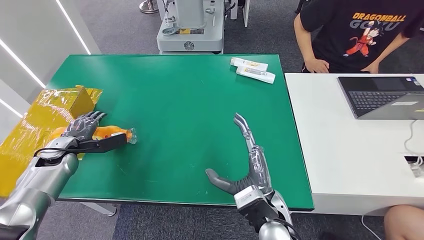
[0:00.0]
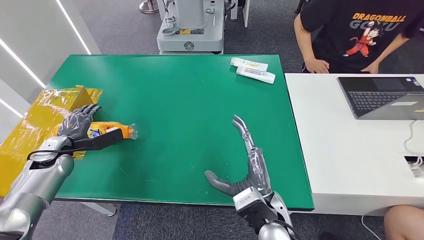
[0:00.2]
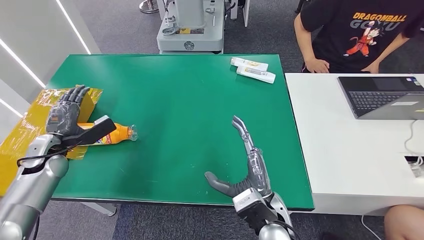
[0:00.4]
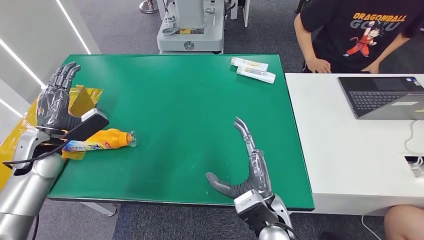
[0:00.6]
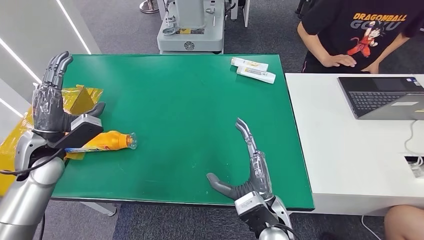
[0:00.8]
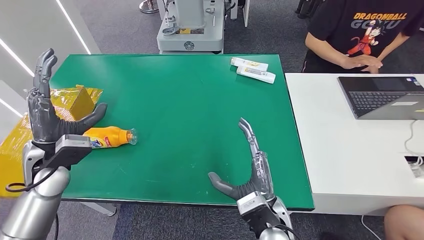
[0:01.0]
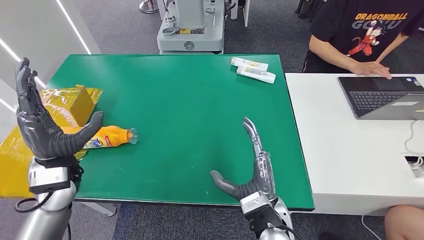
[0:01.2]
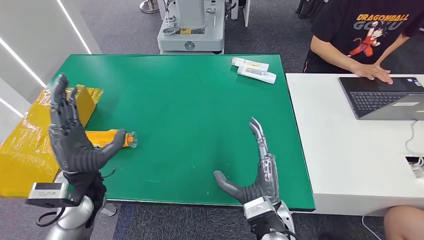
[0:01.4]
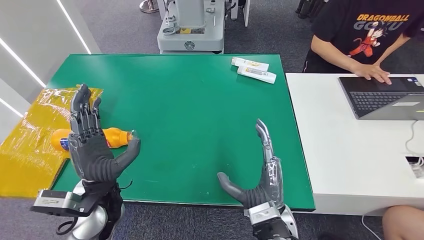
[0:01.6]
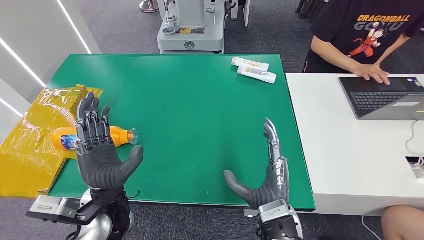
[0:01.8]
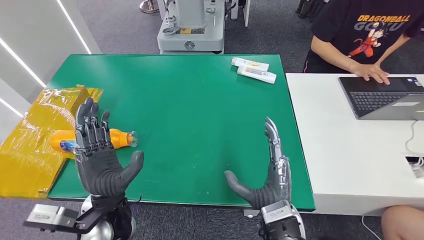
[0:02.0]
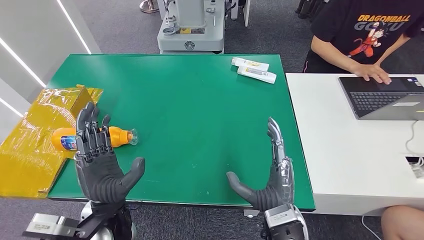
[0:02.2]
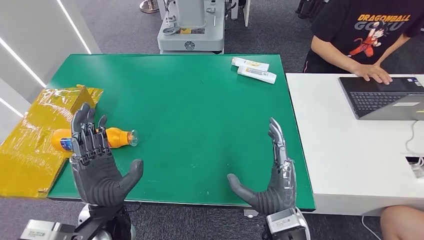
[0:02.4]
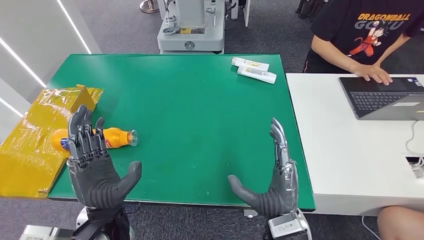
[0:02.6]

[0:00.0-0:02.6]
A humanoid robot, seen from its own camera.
Step, 0:00.0 to 0:02.6: Turn the bottle to the front side.
0:00.0 to 0:01.2: The left hand is displaced to the right, upward and backward by roughly 15 cm.
0:01.2 to 0:02.6: The left hand is displaced to the right and backward by some 15 cm.

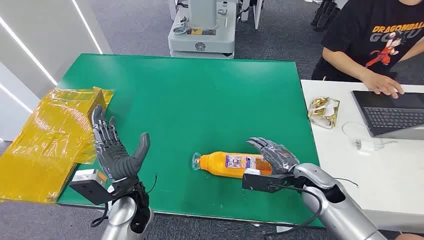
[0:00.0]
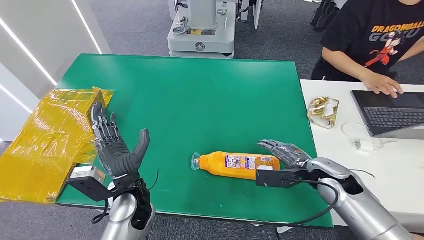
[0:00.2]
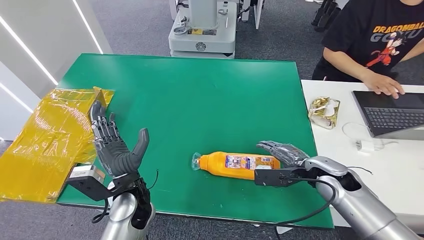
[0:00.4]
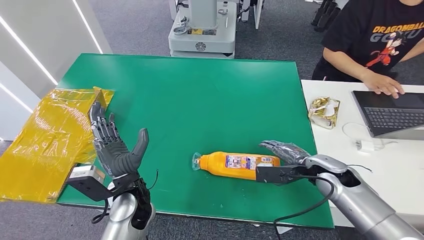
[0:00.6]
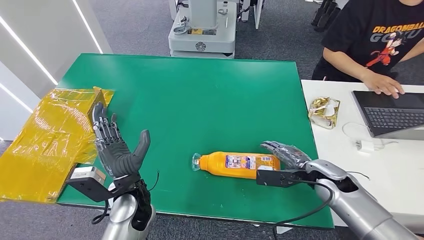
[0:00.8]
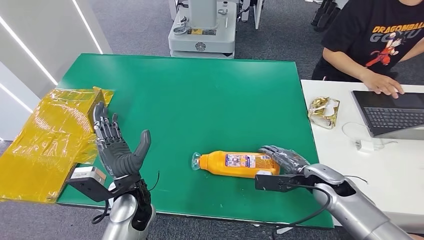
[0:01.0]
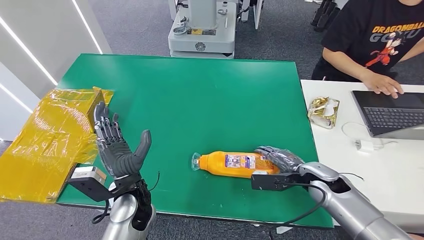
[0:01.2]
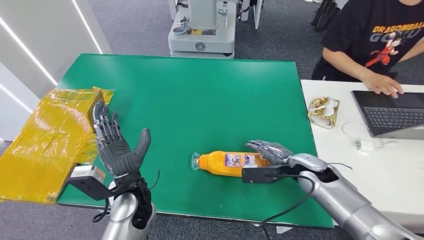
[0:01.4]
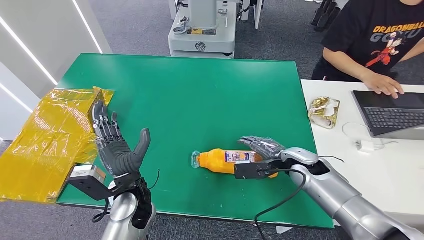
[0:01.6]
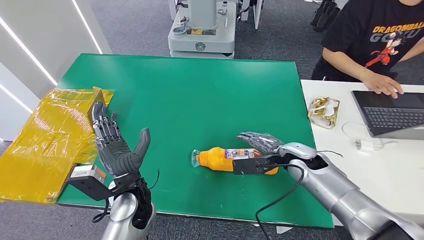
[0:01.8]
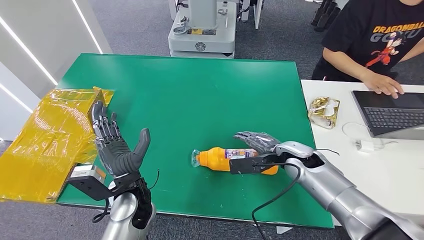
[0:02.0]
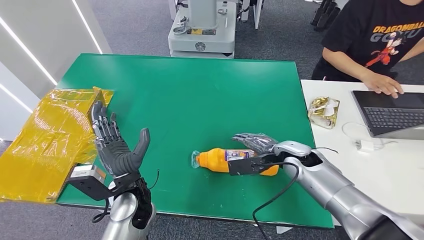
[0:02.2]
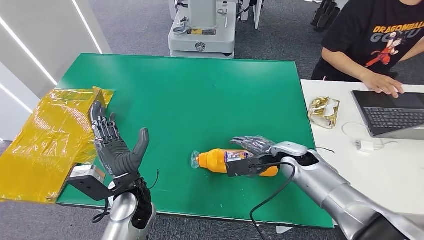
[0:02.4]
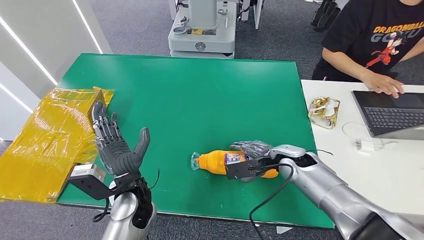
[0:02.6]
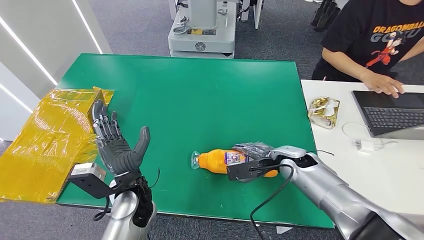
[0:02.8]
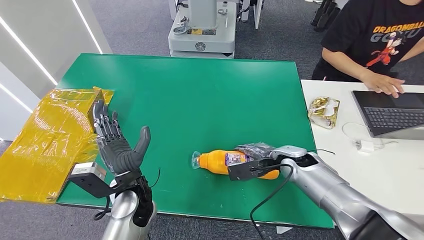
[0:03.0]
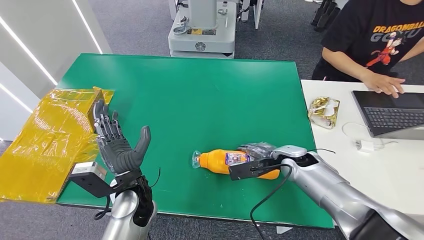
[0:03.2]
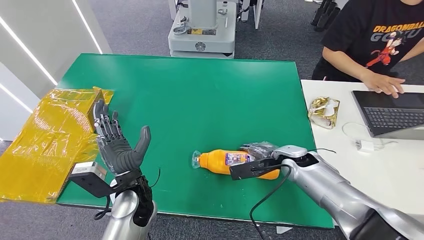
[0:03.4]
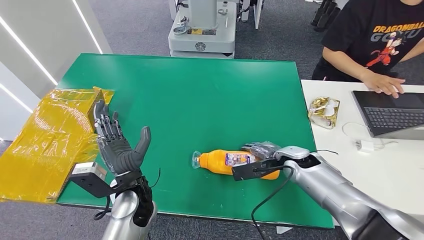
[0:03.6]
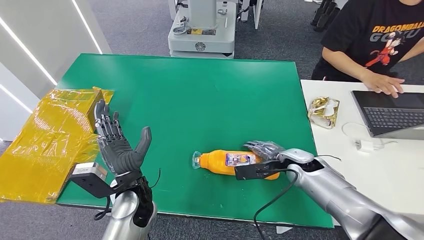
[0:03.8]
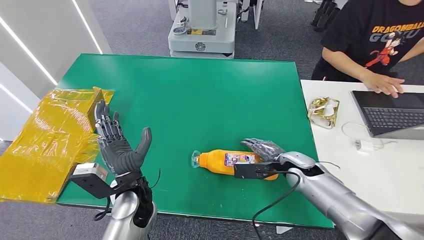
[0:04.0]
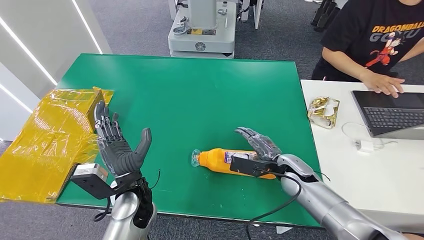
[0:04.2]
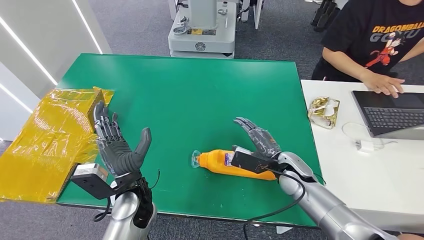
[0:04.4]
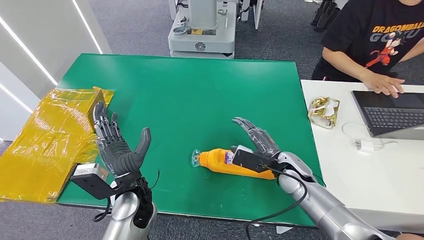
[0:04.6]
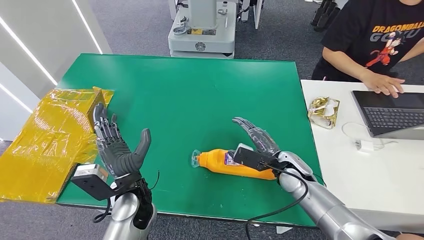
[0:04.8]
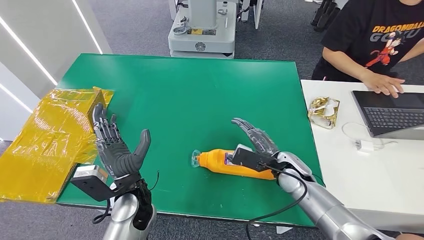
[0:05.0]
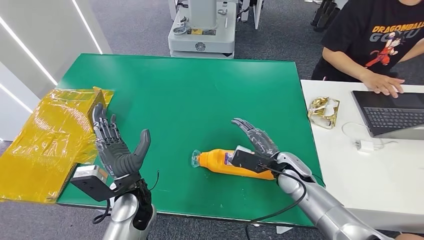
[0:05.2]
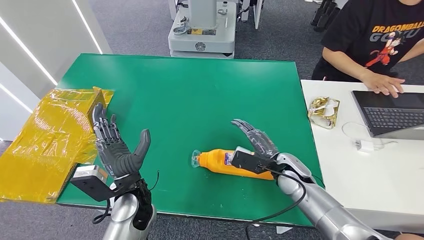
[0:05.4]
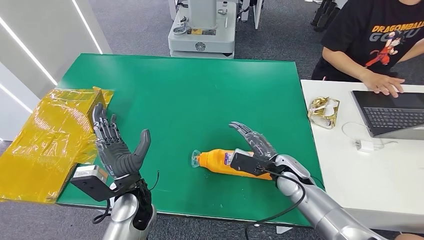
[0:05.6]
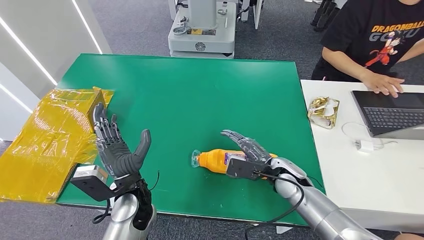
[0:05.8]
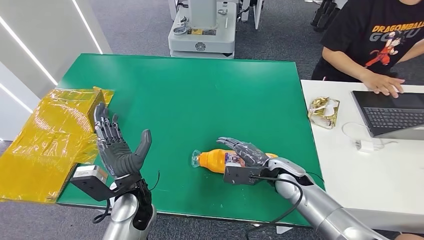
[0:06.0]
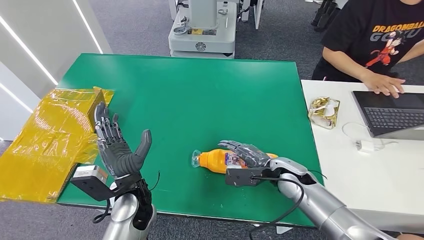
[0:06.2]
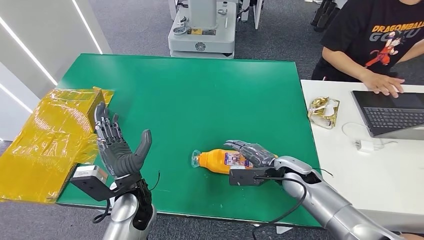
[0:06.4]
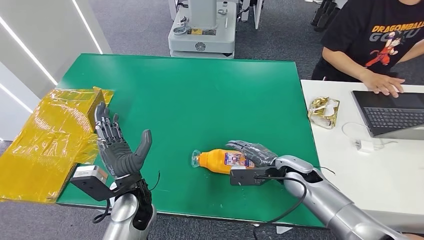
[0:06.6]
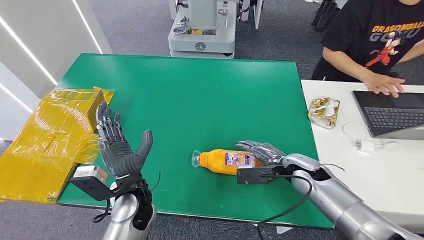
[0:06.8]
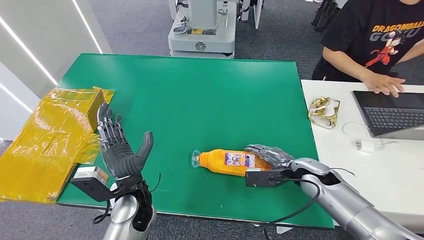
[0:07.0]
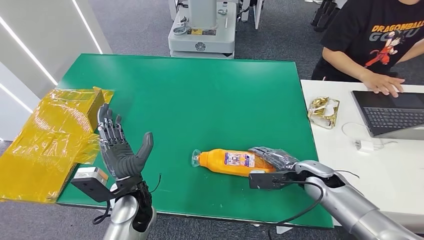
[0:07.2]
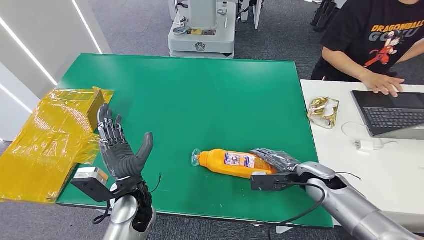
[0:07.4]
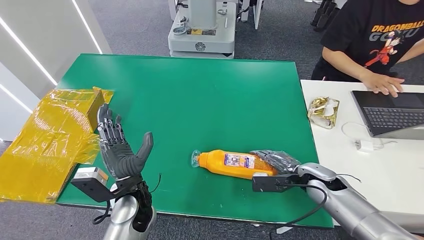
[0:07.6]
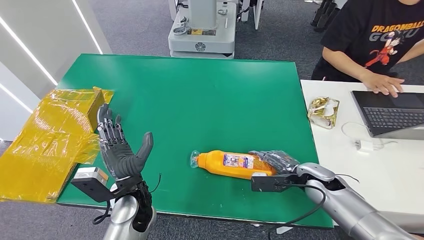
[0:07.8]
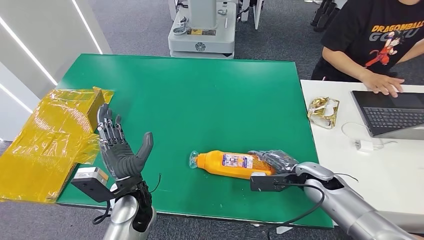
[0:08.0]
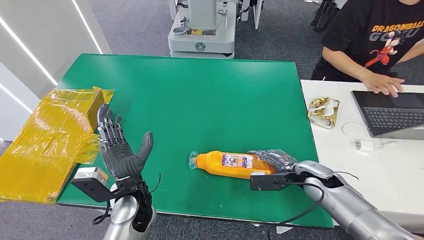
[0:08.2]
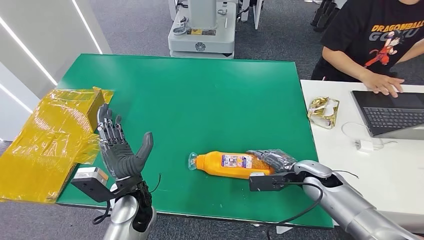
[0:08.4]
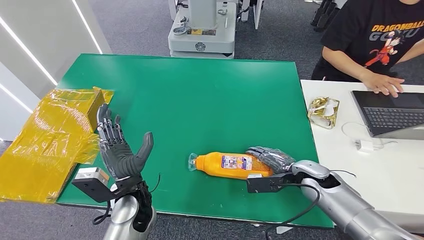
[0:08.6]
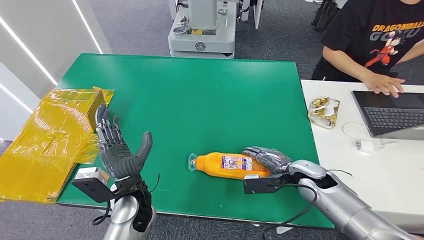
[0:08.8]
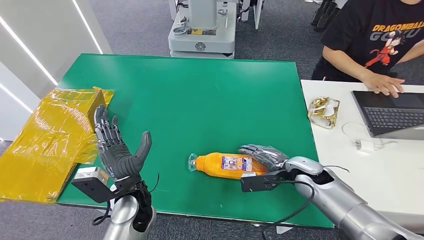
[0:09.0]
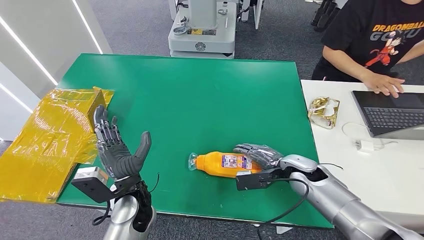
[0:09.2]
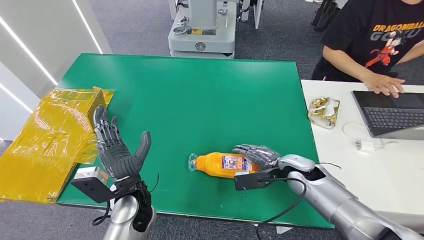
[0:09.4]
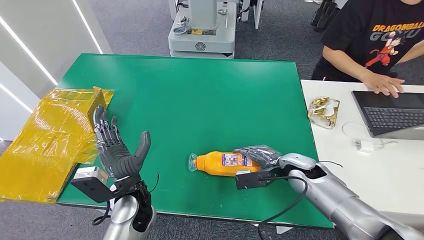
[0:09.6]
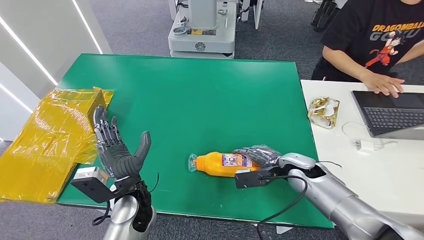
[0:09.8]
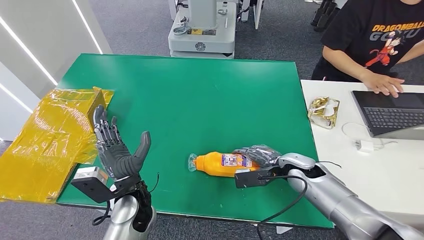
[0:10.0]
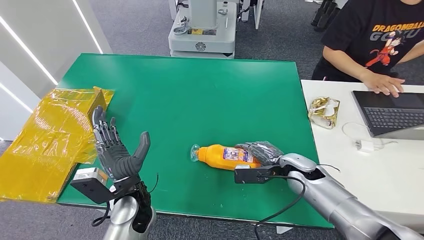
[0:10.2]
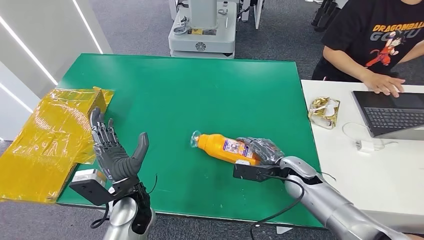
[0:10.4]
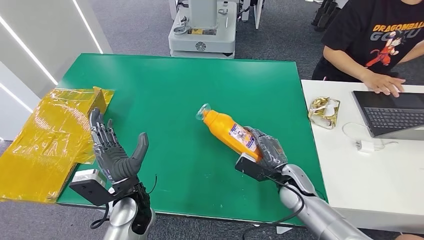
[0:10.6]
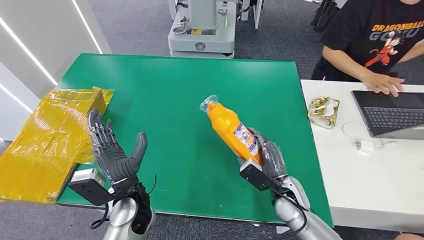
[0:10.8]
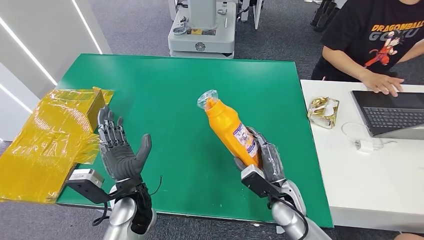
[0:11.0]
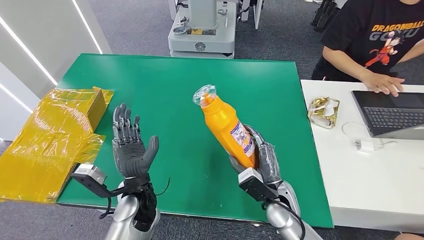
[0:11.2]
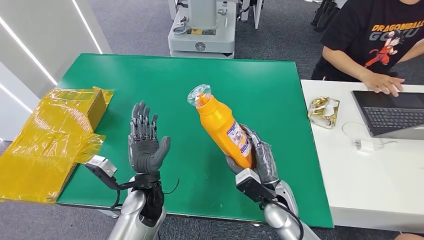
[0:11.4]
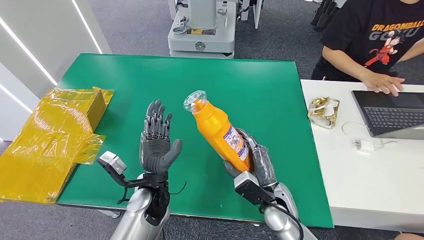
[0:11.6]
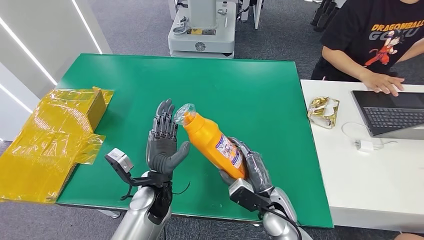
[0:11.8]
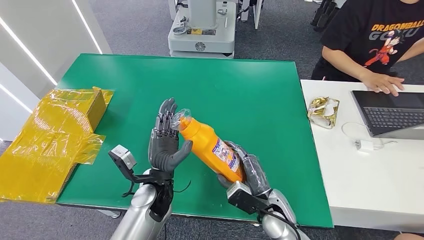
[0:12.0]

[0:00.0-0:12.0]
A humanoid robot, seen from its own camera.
Step, 0:00.0 to 0:11.8: Pick up the bottle from the table.
0:01.6 to 0:03.0: The hands move only a little.
0:04.4 to 0:06.0: The hands move only a little.
0:06.0 to 0:07.6: The right hand is displaced to the right by some 10 cm.
0:07.6 to 0:09.0: The hands make only small movements.
0:09.0 to 0:10.4: The hands move only a little.
0:10.4 to 0:12.0: The left hand changes place by about 5 cm; the right hand heads backward and to the left, covering roughly 10 cm.

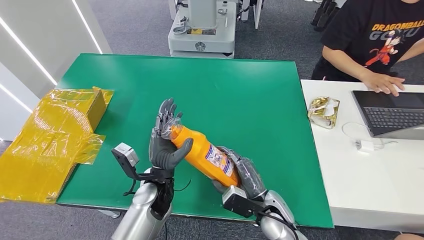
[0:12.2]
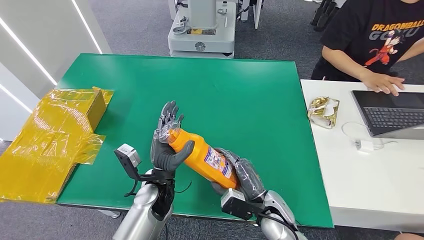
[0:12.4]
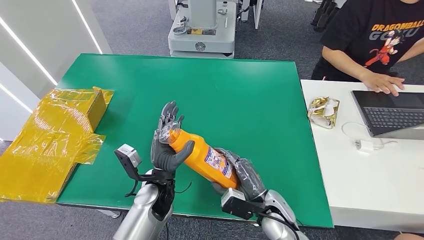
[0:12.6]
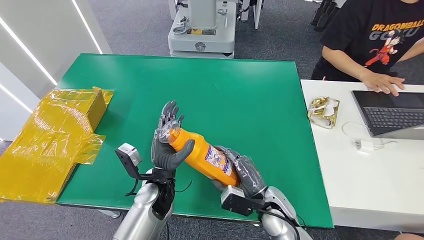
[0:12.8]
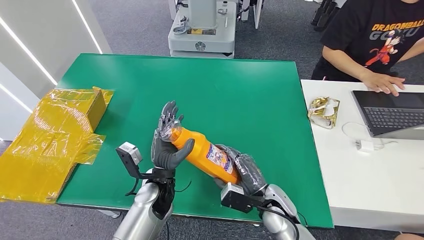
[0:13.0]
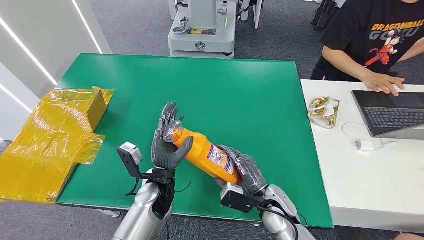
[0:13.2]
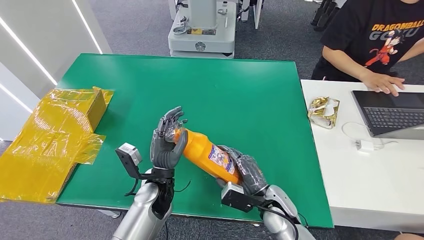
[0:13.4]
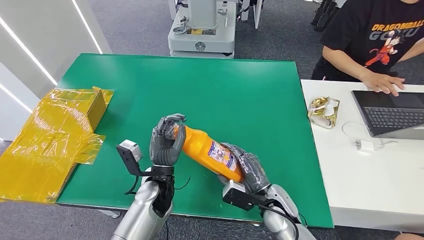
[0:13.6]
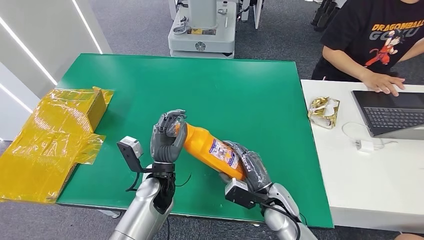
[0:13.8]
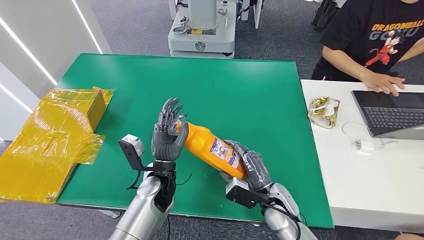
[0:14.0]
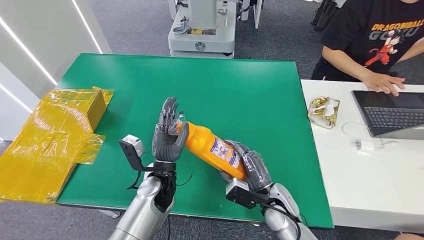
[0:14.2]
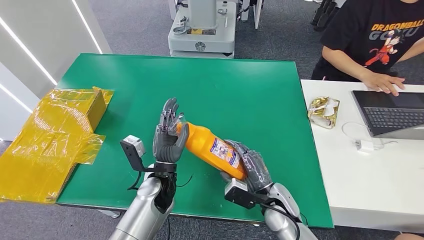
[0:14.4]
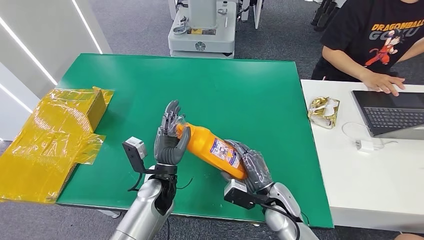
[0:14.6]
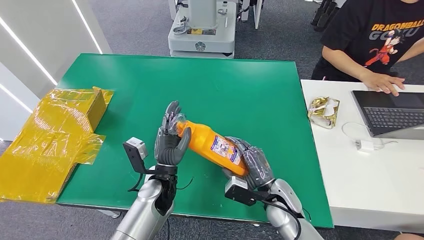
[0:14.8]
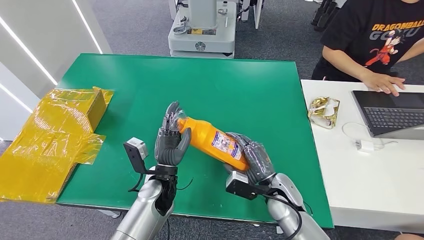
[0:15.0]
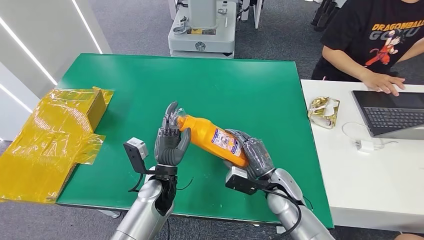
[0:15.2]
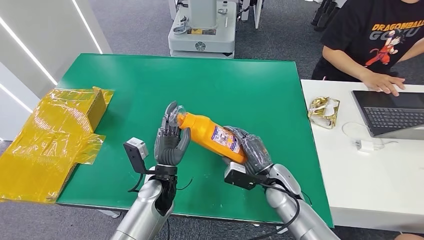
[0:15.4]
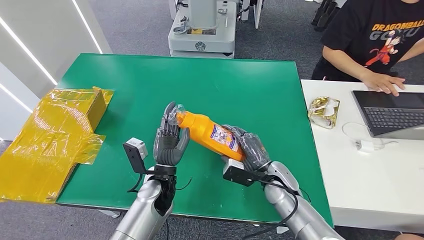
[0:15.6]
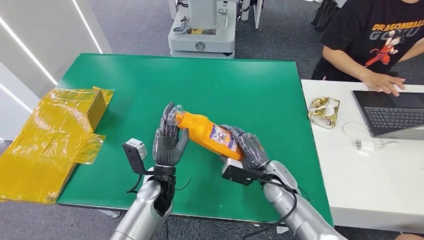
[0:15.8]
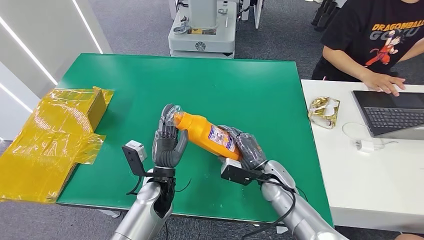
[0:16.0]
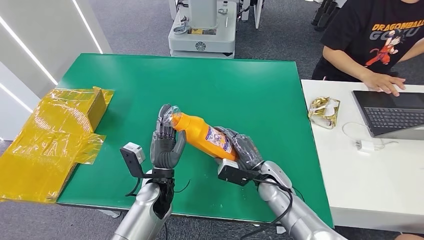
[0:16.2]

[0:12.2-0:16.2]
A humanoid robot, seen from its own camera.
0:12.2 to 0:14.8: The hands stay close to where they were, moving slightly.
0:14.8 to 0:16.2: The right hand shifts by about 5 cm.
